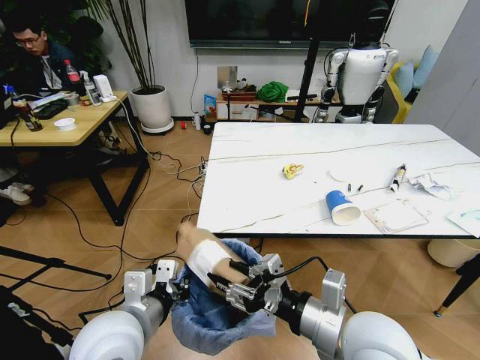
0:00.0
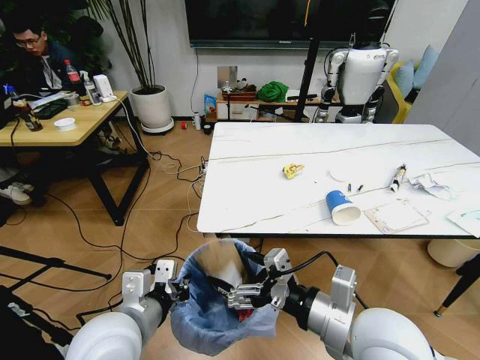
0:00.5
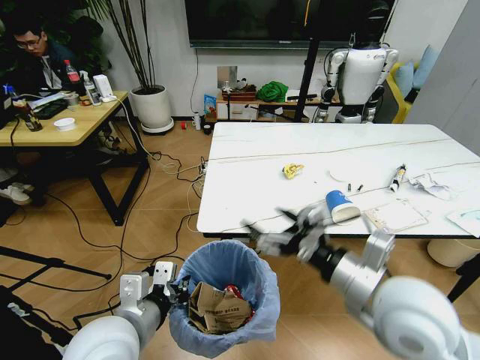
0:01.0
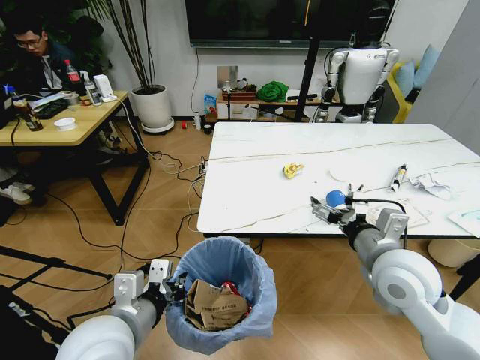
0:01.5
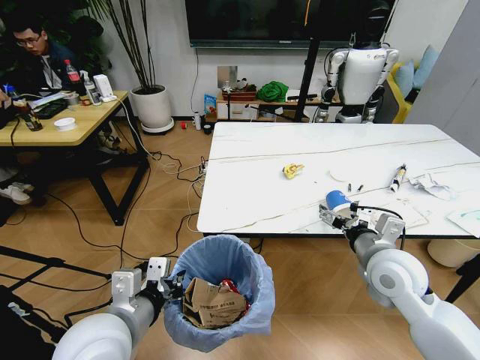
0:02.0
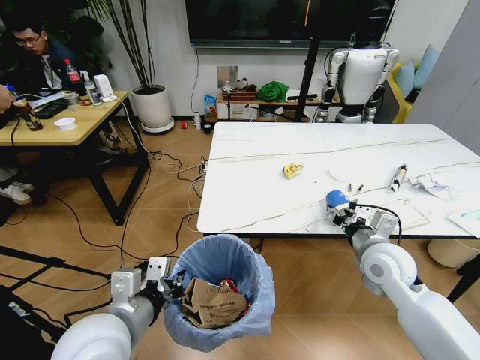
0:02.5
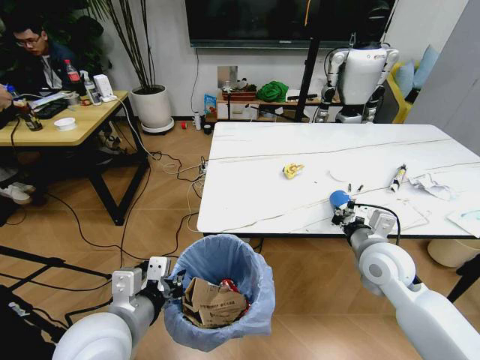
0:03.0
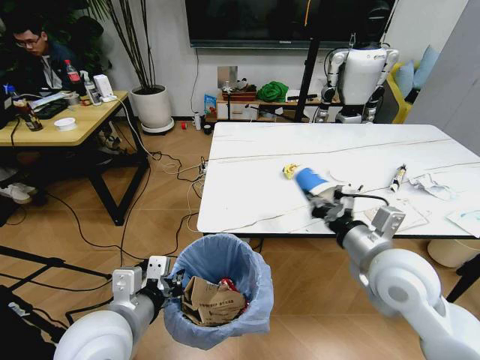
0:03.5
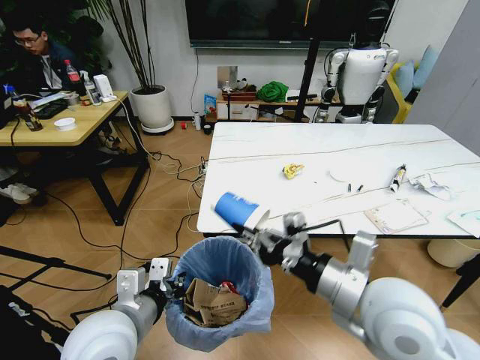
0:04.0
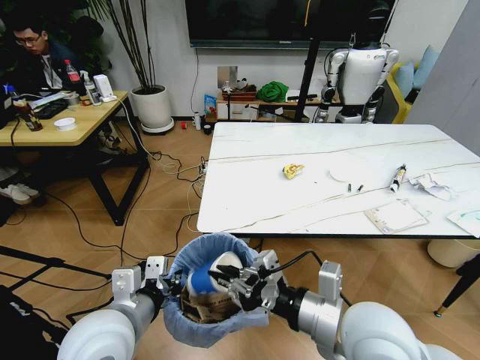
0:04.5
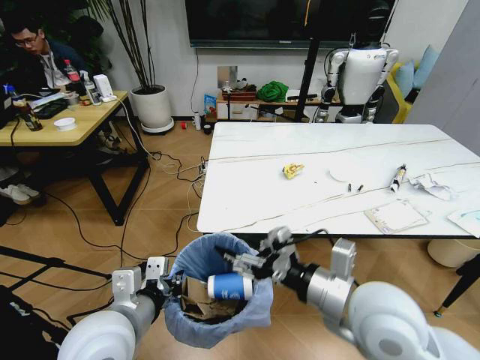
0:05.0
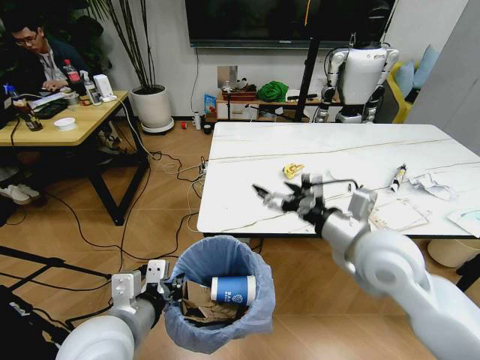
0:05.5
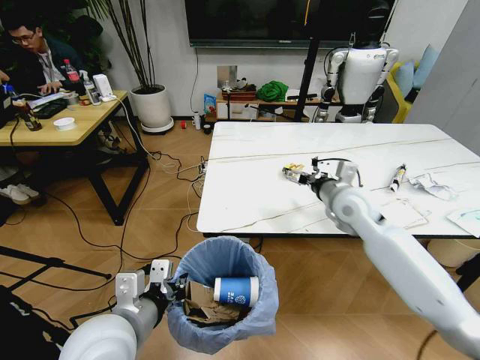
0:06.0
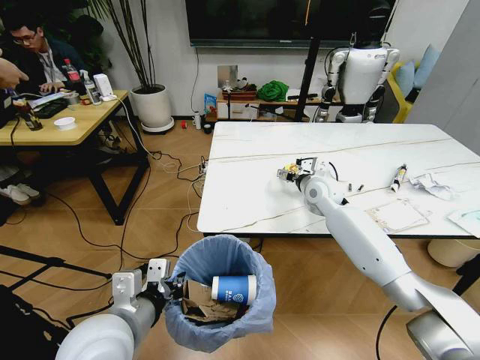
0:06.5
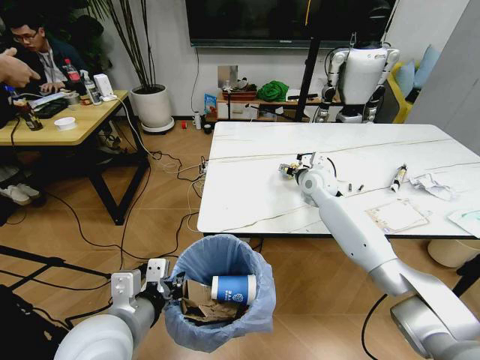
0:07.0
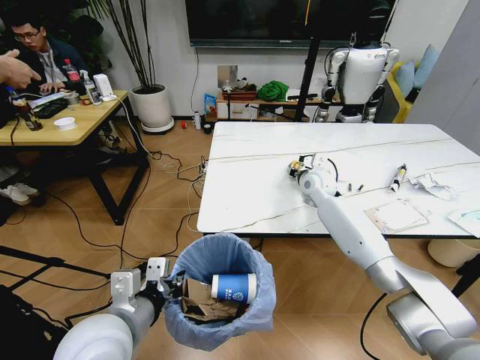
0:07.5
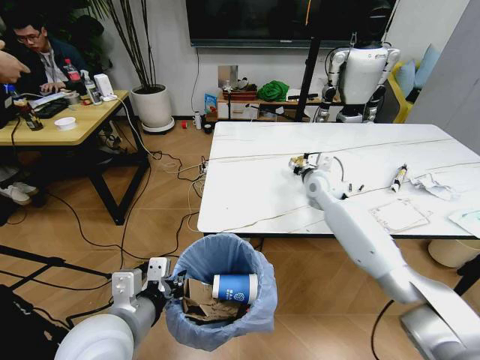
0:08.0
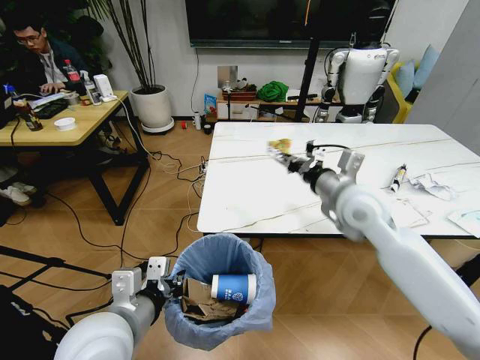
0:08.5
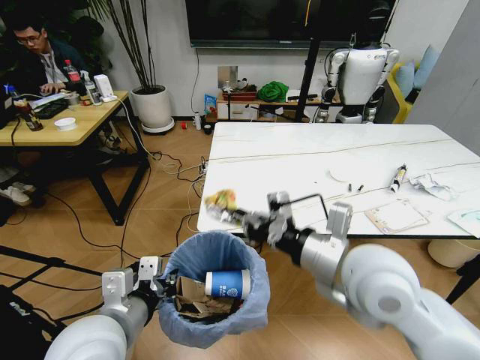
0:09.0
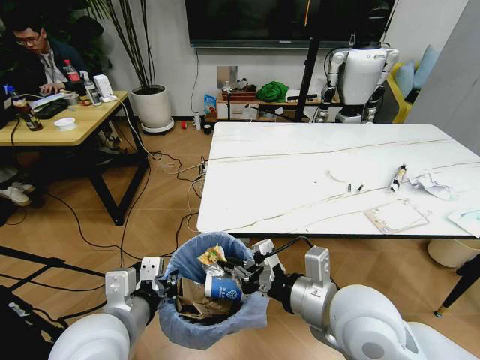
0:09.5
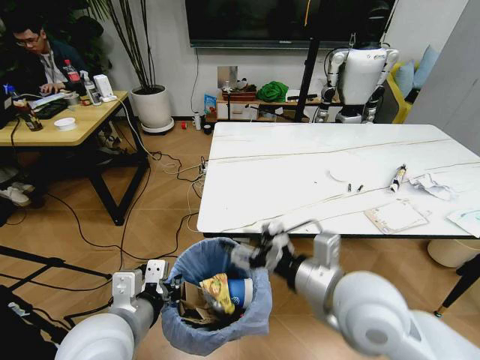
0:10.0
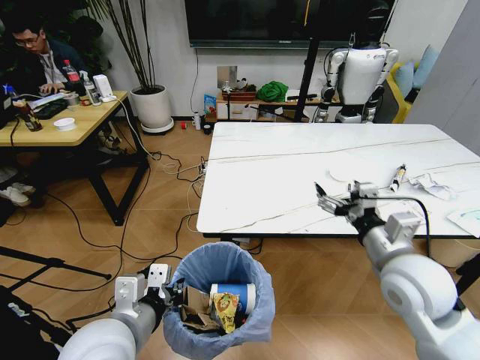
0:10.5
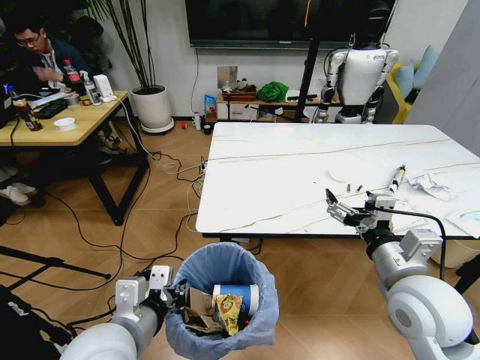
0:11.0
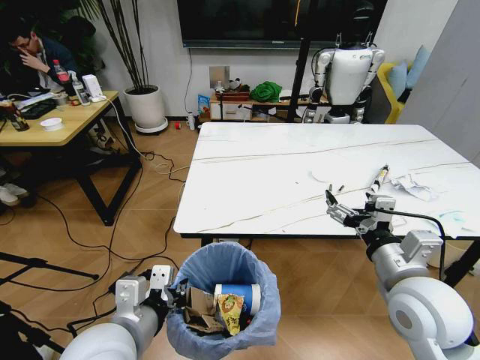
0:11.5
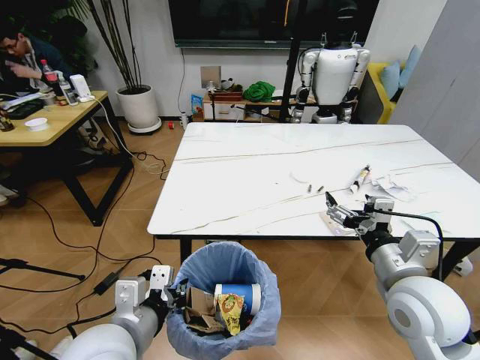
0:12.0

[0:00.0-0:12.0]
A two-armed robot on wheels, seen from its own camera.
Task of the whole recording: Pick up the trash bin and place the trash from the table into it.
0:00.0 to 0:02.0: The right gripper moves forward and to the right, some 15 cm, and opens its fingers.
0:02.0 to 0:04.0: The right gripper shifts about 15 cm backward, to the left and upward, and closes up.
0:04.0 to 0:06.0: The right gripper moves forward, roughly 25 cm, and opens its fingers.
0:06.0 to 0:08.0: The right gripper shifts roughly 10 cm forward, and closes.
0:08.0 to 0:10.0: The right gripper travels backward by roughly 30 cm, and opens.
0:10.0 to 0:12.0: The right gripper moves to the right, about 10 cm.

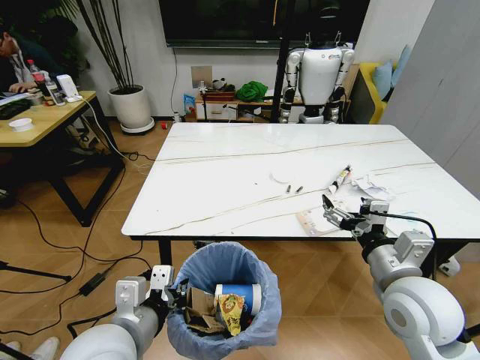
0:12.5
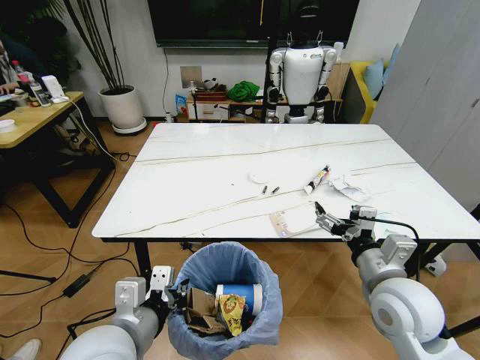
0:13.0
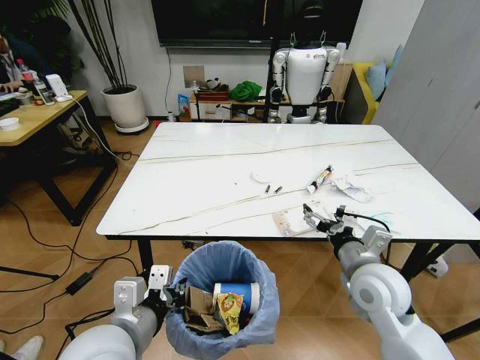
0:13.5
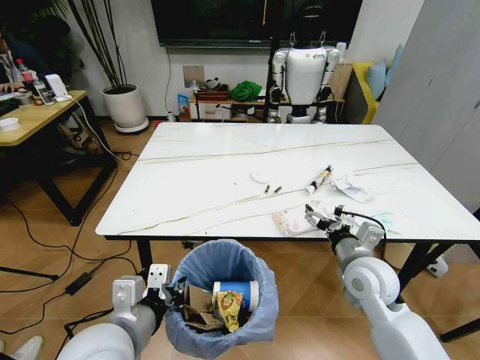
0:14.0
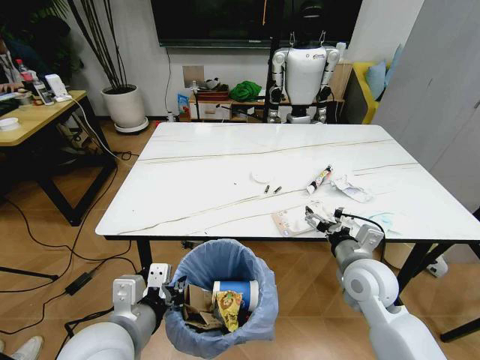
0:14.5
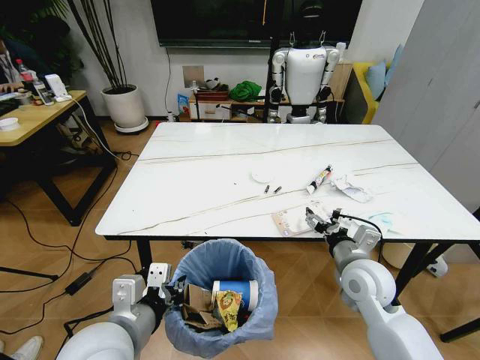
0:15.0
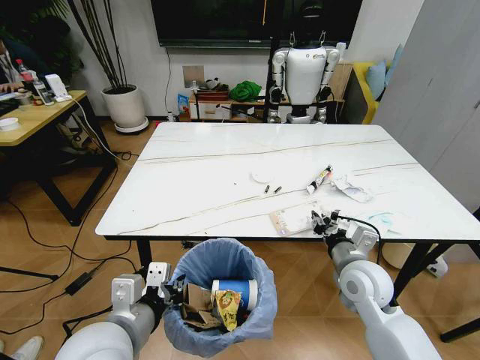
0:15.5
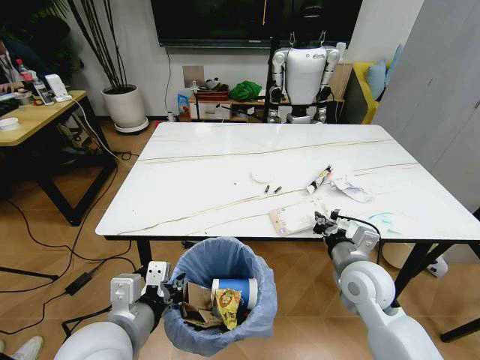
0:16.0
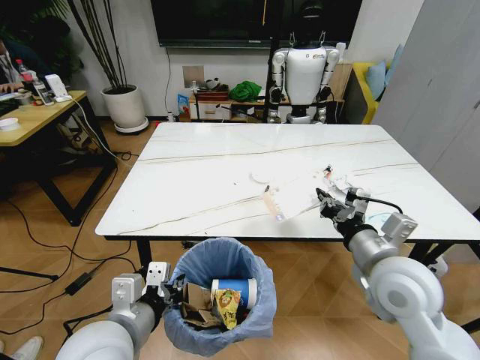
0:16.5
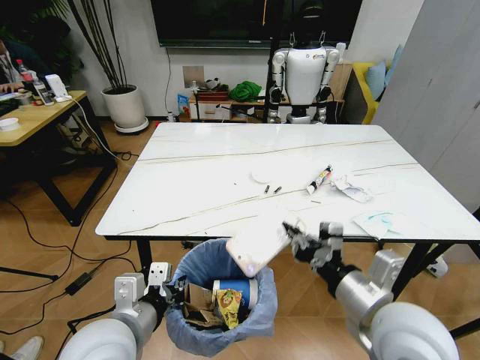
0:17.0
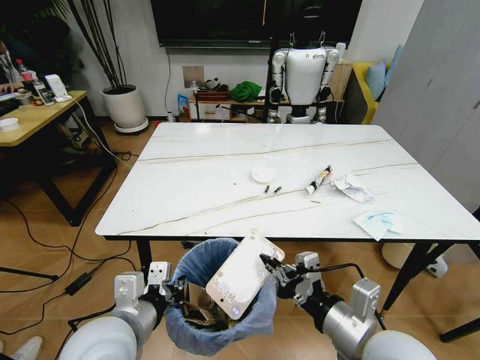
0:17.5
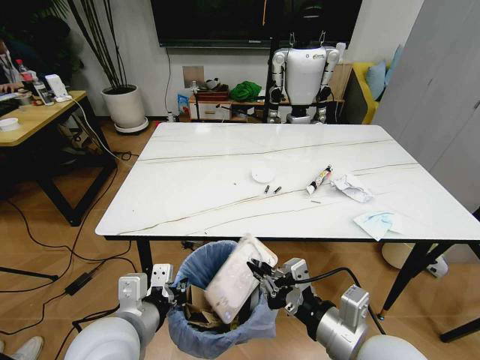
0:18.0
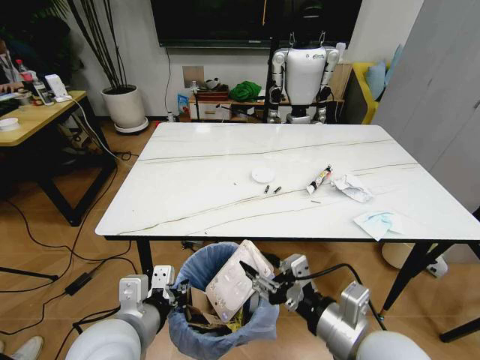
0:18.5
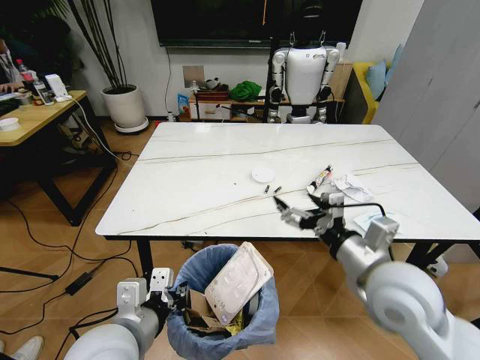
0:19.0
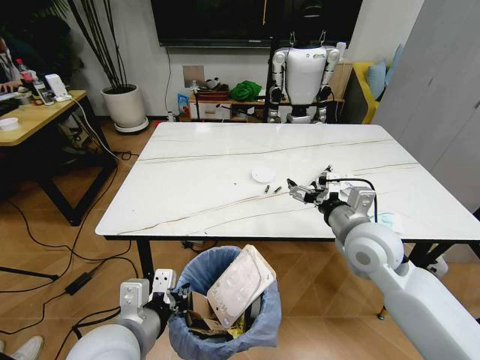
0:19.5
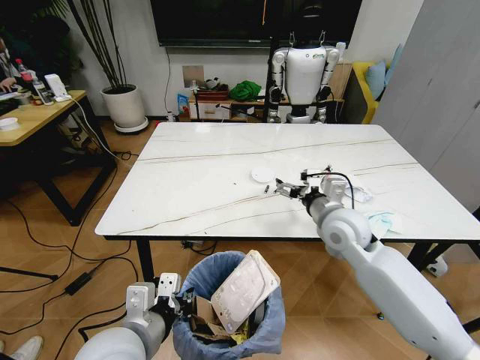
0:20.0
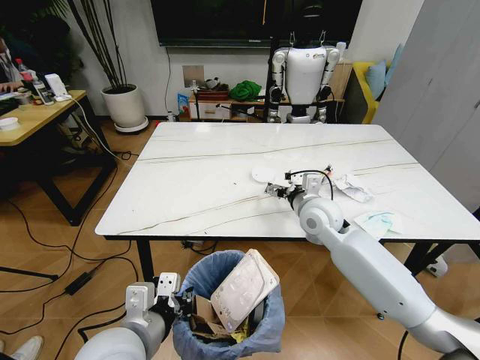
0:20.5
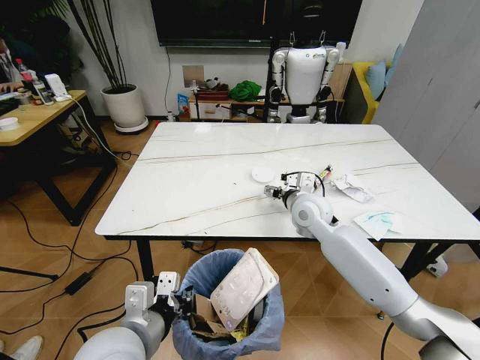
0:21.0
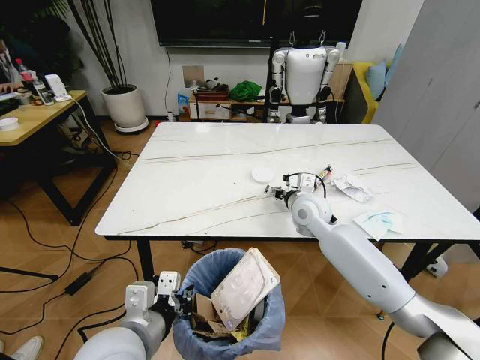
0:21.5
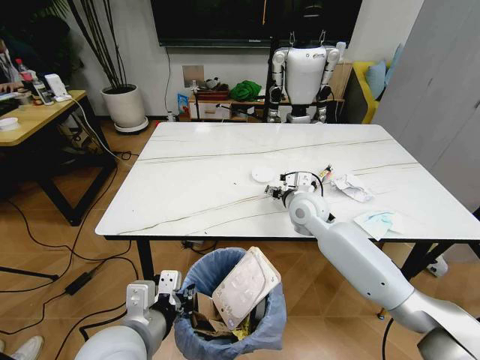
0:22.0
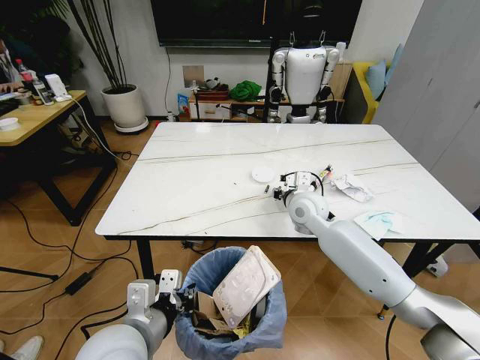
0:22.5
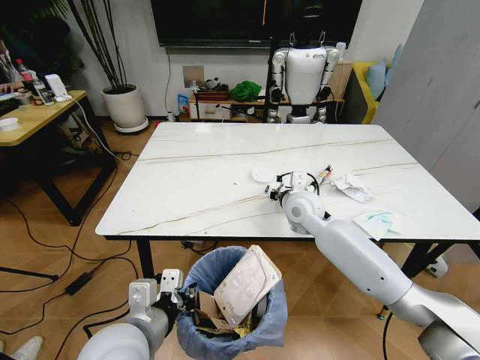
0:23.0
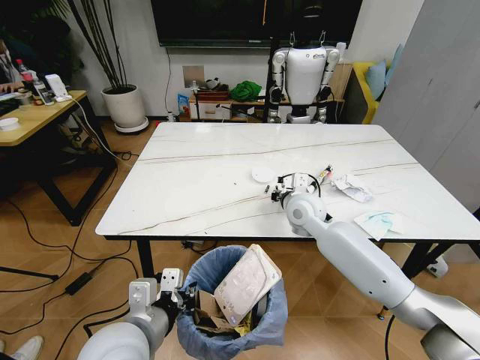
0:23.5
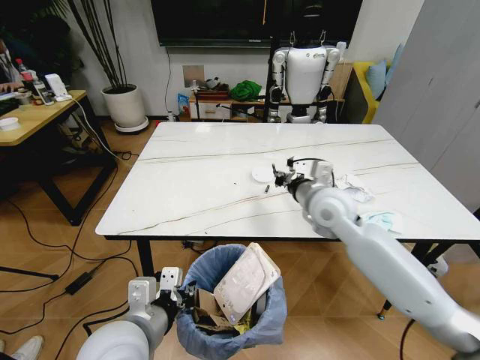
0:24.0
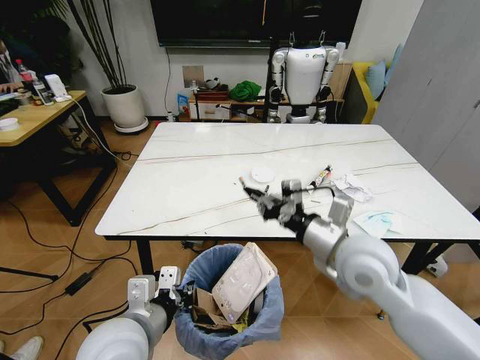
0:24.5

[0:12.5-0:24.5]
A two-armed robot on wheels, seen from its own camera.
Task of the whole recording: Pick up the trash bin and place the trash from the table into it.
0:12.5 to 0:14.5: The right gripper shifts some 10 cm downward and forward.
0:14.5 to 0:16.5: The right gripper moves upward, approximately 10 cm, and closes.
0:16.5 to 0:18.5: The right gripper travels backward and to the left by about 10 cm, and opens.
0:18.5 to 0:20.5: The right gripper heads forward, covering approximately 30 cm.
0:20.5 to 0:22.5: The right gripper closes its fingers.
0:22.5 to 0:24.5: The right gripper shifts approximately 20 cm backward and upward, and closes its fingers.

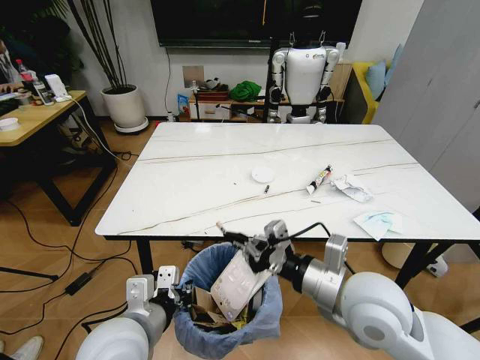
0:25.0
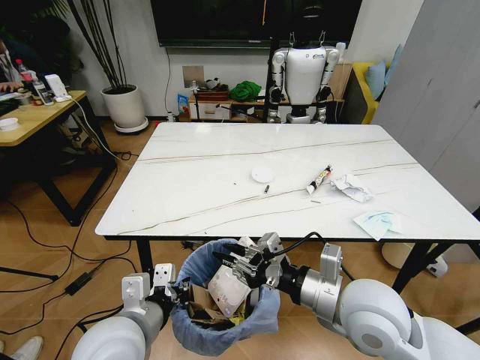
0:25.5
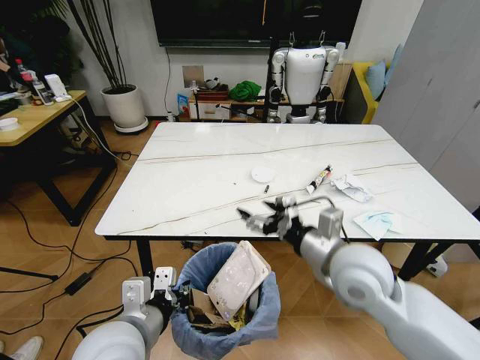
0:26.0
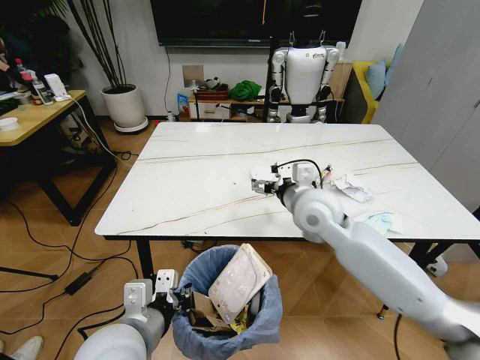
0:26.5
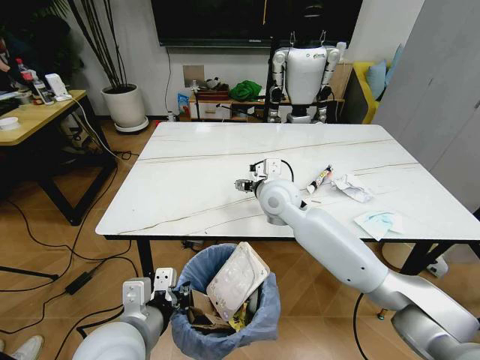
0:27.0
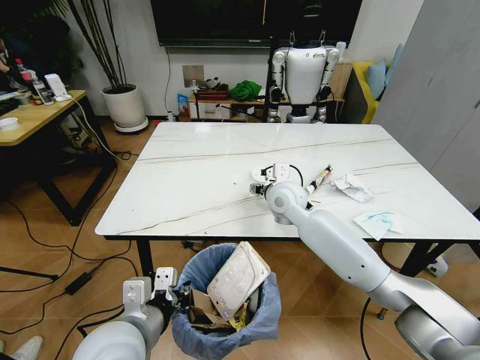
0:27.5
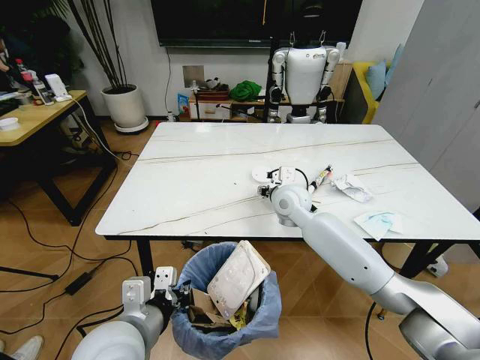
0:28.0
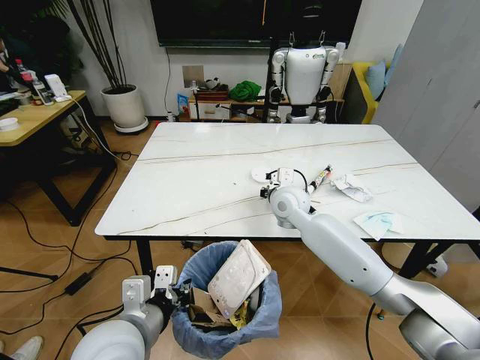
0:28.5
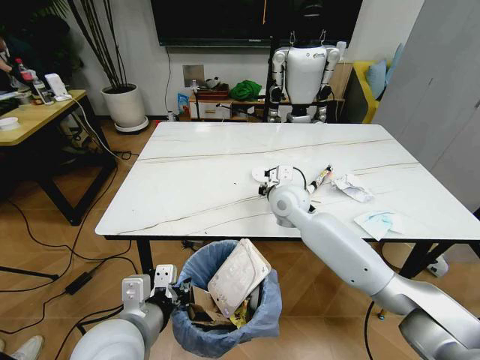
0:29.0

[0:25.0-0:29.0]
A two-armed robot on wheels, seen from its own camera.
Task of the whole recording: Pick up the trash bin and place the trash from the table into it.
0:25.0 to 0:27.0: The right gripper travels forward and to the left by roughly 25 cm, and opens its fingers.
0:27.0 to 0:29.0: The right gripper closes up.
